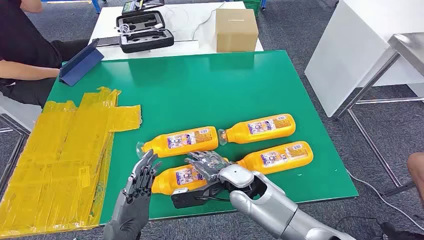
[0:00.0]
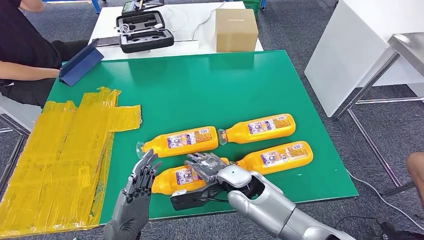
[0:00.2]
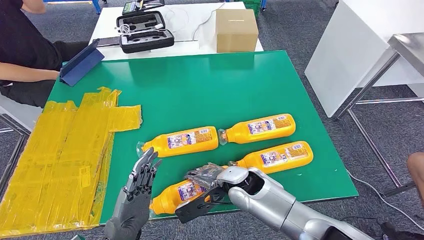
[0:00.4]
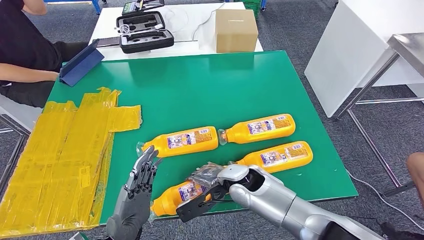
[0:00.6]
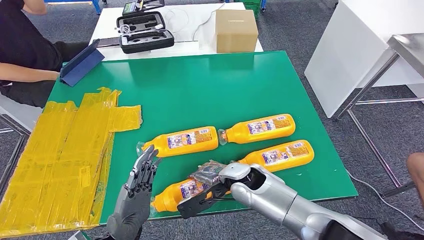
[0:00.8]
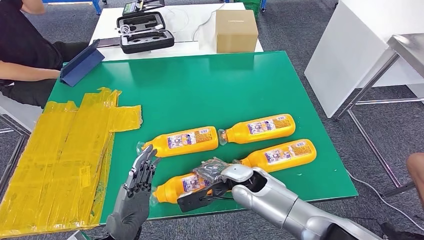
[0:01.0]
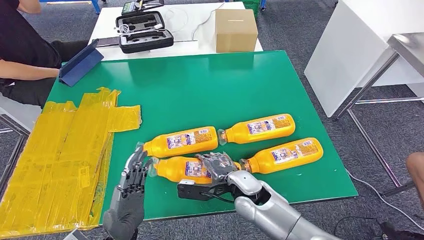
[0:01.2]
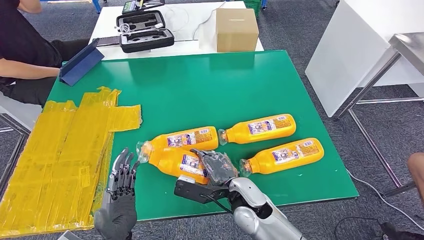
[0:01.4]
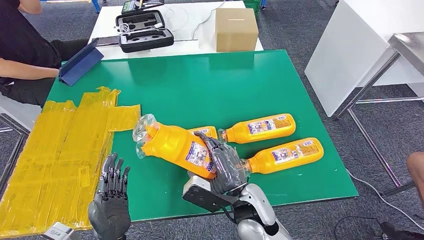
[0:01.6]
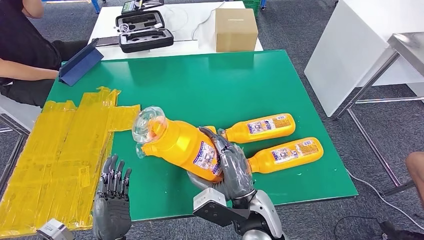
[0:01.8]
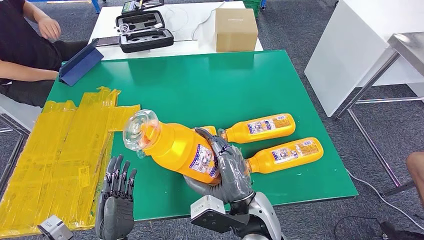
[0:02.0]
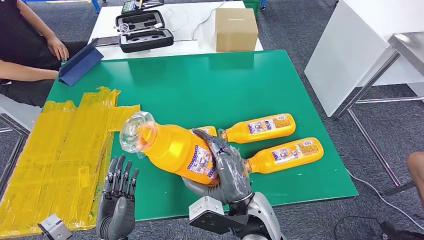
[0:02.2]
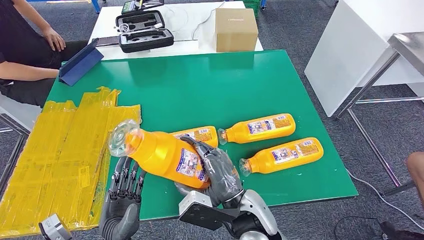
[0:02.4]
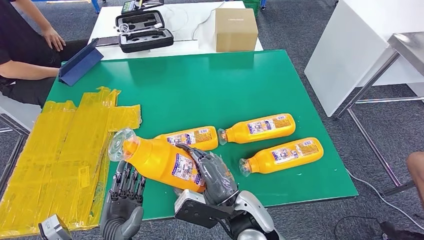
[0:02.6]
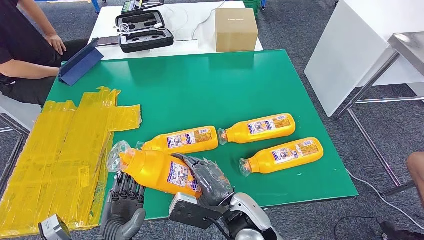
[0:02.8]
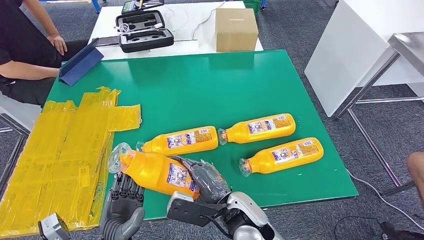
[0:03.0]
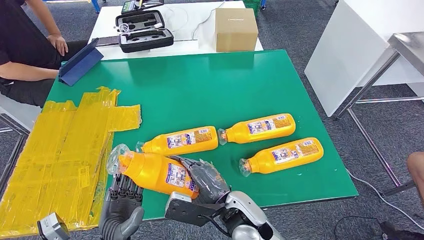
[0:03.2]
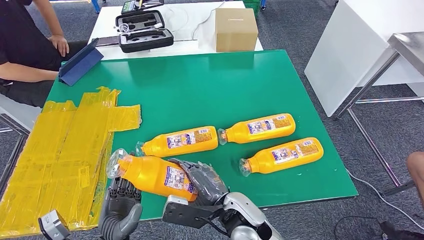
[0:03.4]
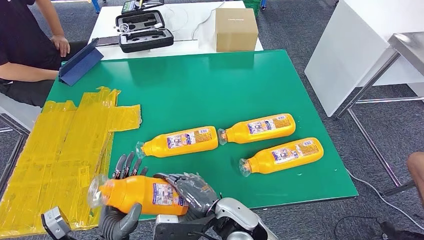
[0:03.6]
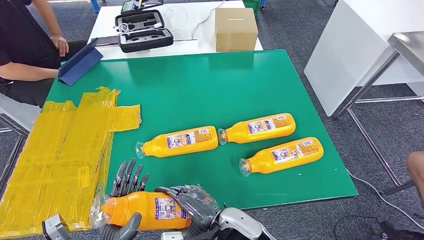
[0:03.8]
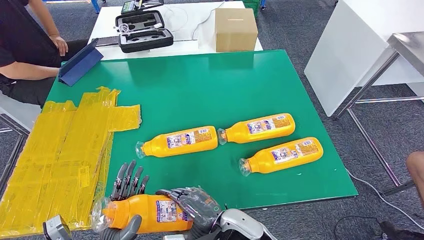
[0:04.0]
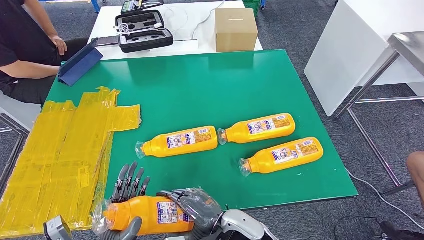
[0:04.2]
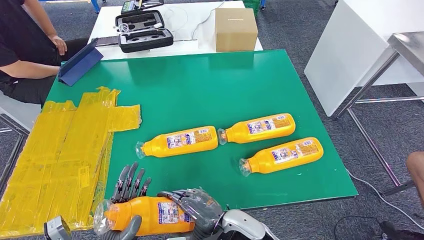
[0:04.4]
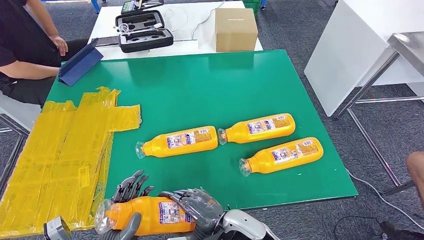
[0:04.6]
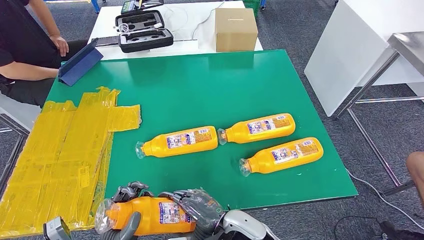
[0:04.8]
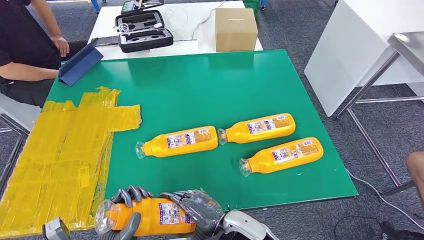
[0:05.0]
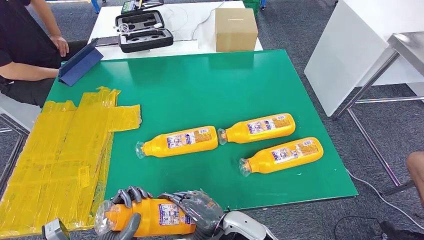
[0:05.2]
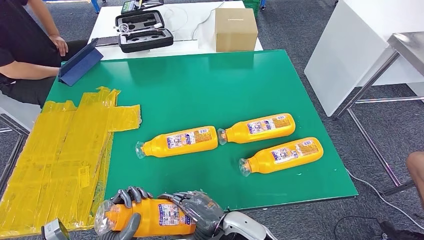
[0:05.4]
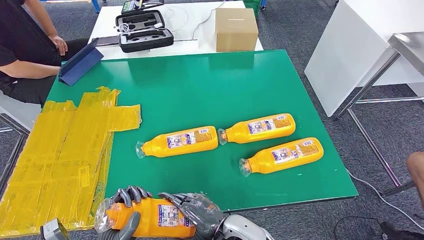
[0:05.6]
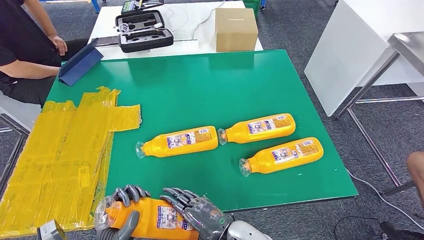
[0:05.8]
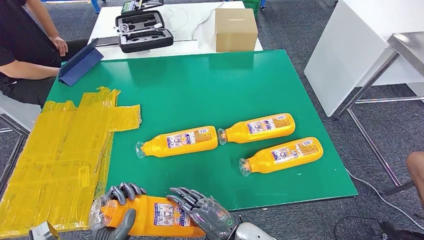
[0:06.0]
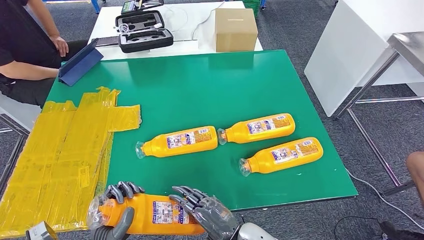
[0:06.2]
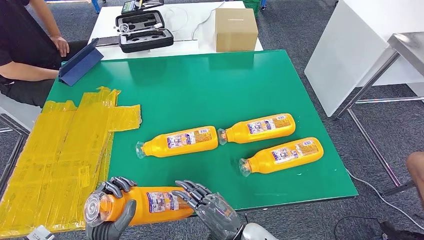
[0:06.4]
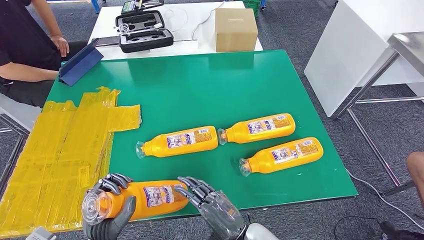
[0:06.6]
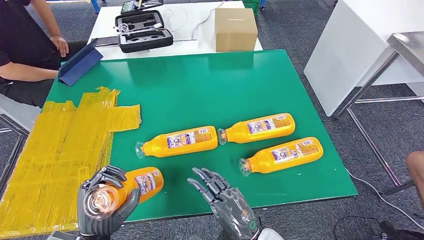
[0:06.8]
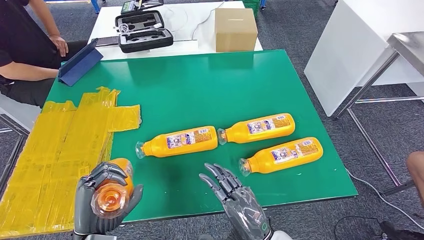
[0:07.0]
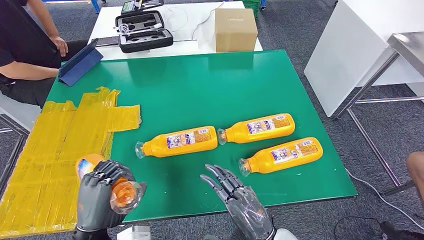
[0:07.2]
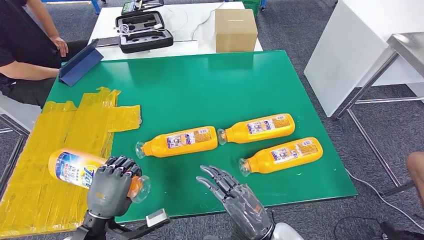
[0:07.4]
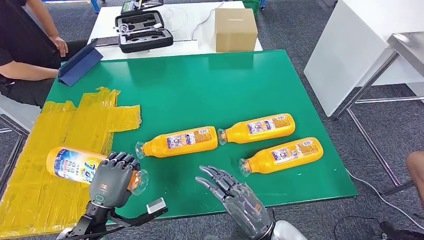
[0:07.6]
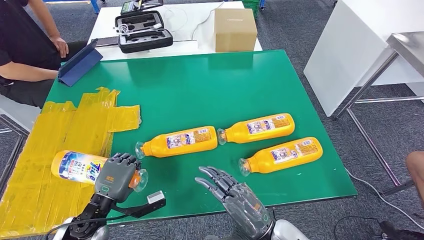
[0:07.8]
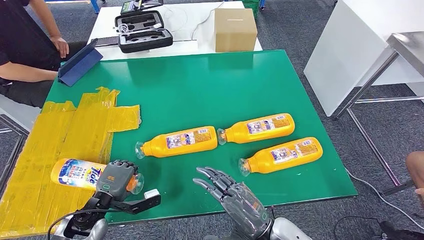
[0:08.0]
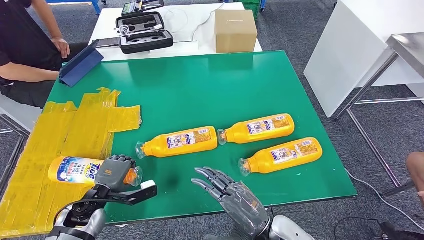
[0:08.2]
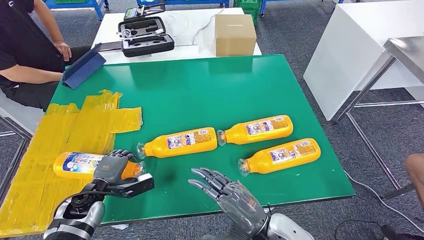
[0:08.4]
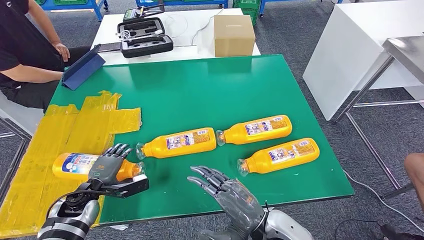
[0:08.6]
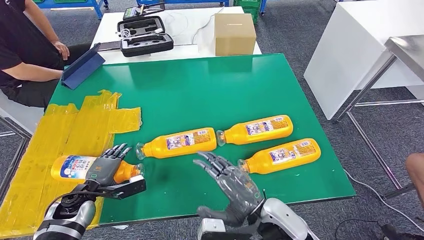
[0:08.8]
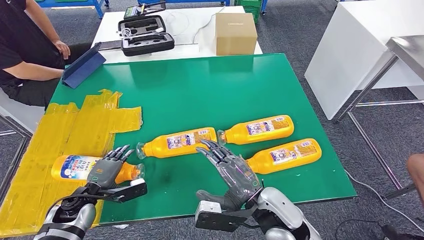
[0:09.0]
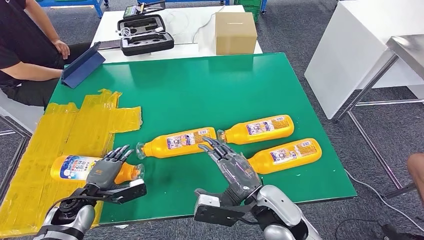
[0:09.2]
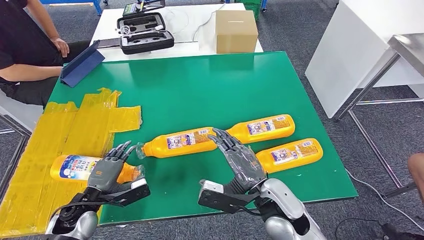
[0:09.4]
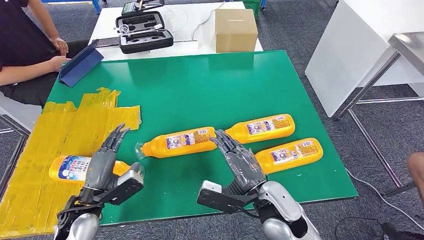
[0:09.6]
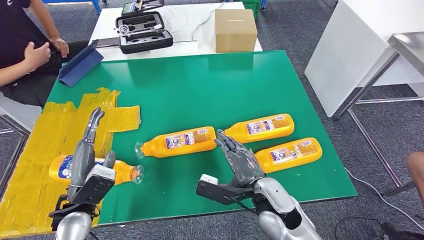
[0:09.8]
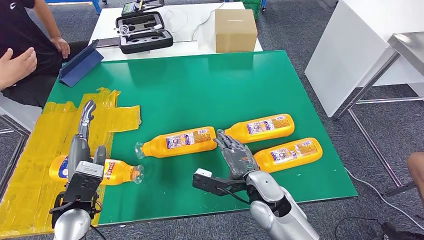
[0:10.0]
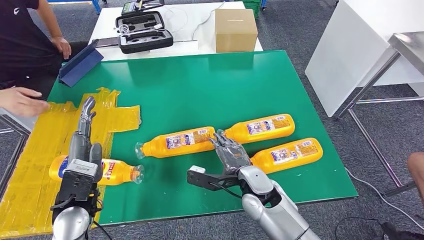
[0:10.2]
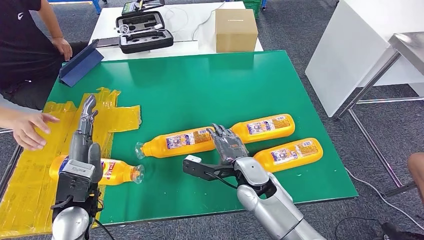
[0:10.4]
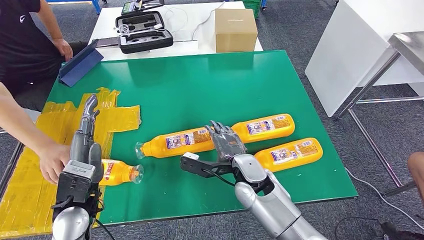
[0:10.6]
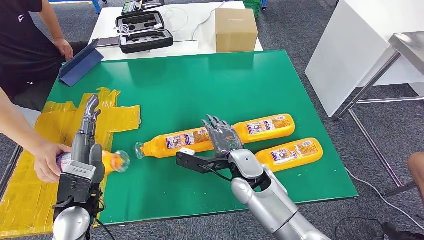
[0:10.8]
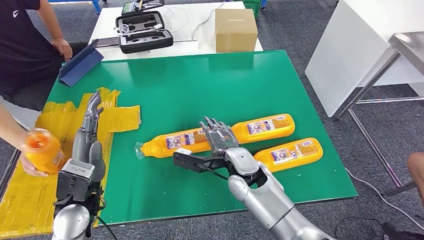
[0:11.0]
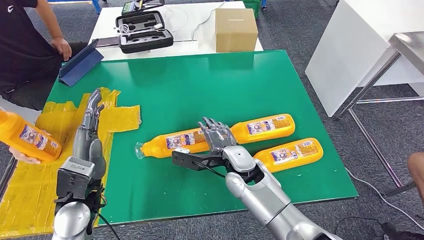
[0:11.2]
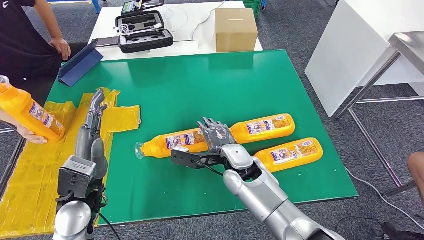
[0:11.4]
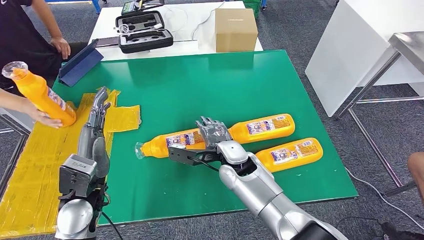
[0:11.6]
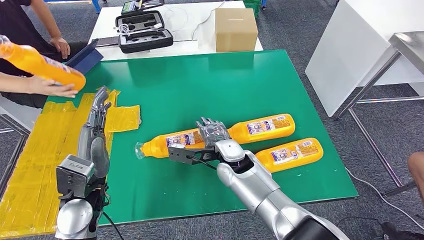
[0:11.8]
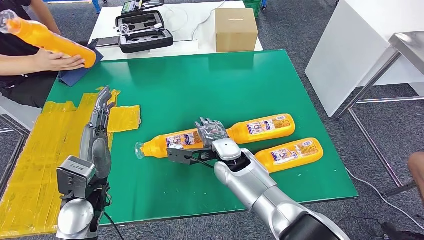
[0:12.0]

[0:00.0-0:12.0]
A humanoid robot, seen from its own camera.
Step, 0:00.0 to 0:03.8: Take the fast-moving consumer goods bottle from the table.
Step, 0:04.0 to 0:09.0: Flip the fast-moving consumer goods bottle to the front side.
0:04.4 to 0:06.0: The hands make only small movements.
0:06.0 to 0:07.6: The left hand is displaced forward by roughly 10 cm; the right hand travels to the right by some 5 cm.
0:10.4 to 0:12.0: The right hand heads forward and to the left, covering approximately 10 cm.

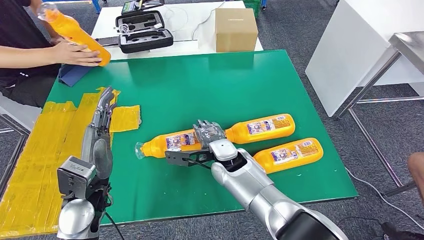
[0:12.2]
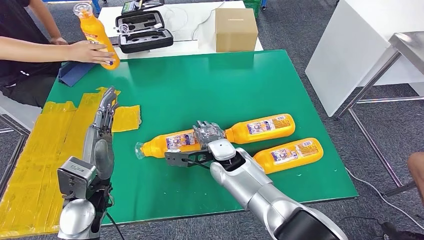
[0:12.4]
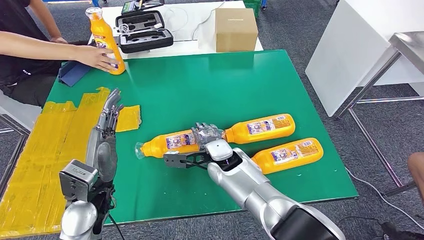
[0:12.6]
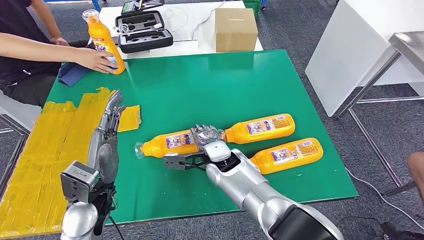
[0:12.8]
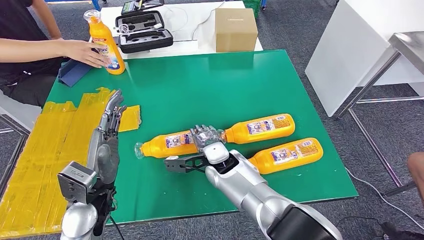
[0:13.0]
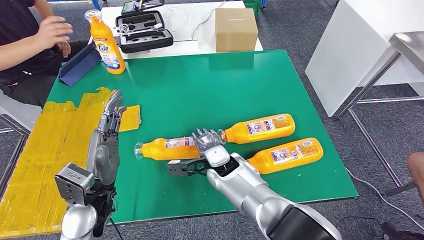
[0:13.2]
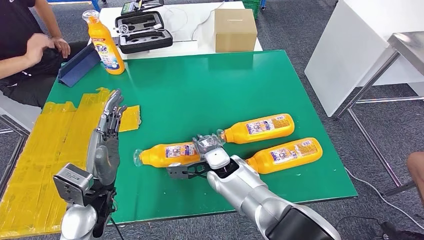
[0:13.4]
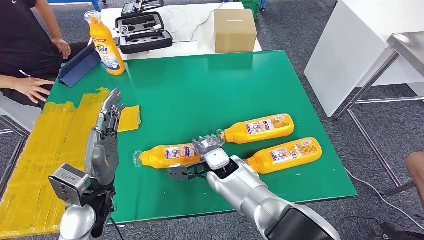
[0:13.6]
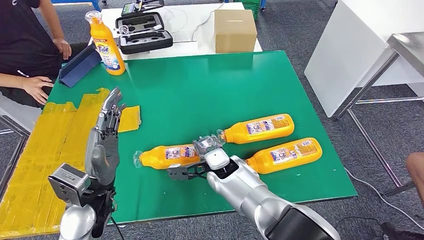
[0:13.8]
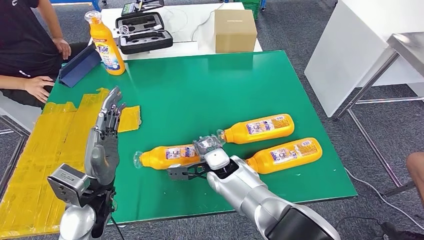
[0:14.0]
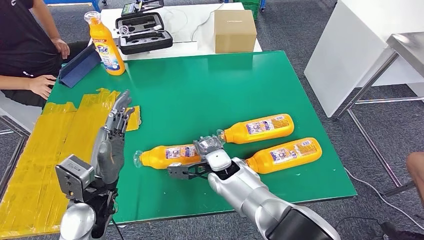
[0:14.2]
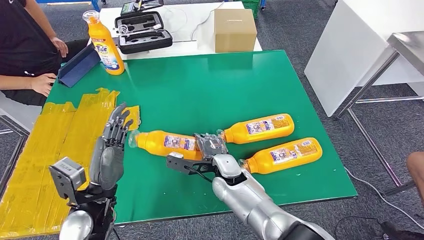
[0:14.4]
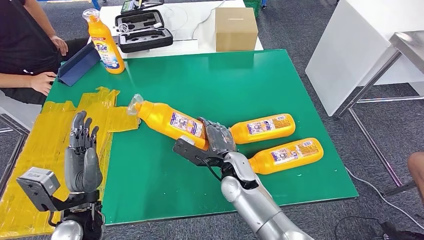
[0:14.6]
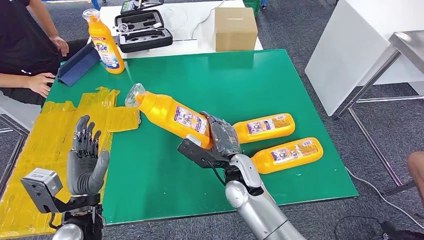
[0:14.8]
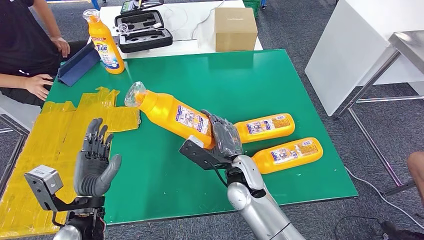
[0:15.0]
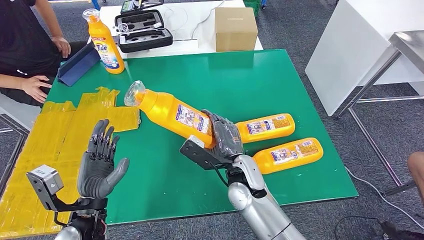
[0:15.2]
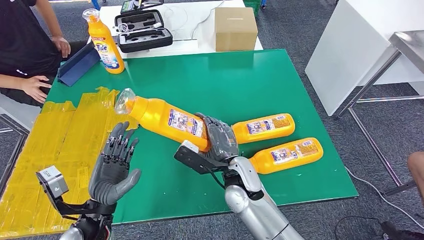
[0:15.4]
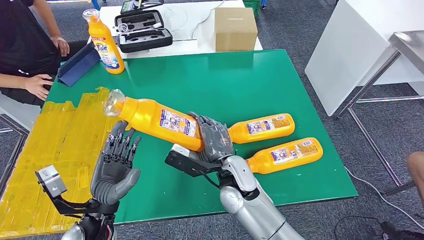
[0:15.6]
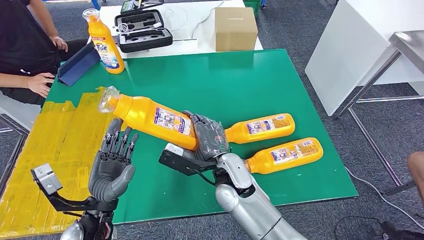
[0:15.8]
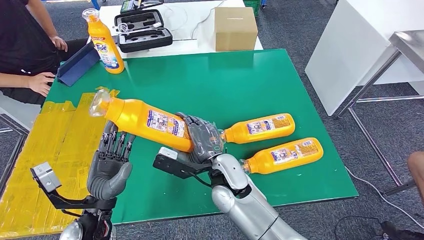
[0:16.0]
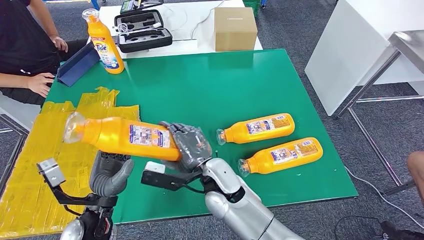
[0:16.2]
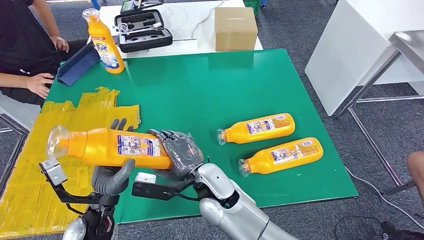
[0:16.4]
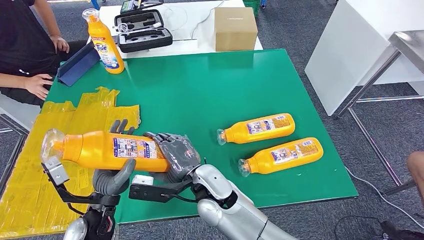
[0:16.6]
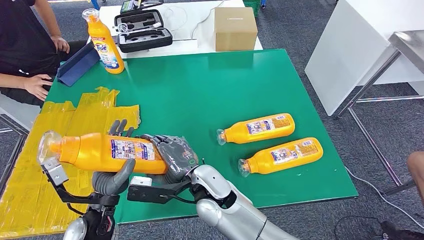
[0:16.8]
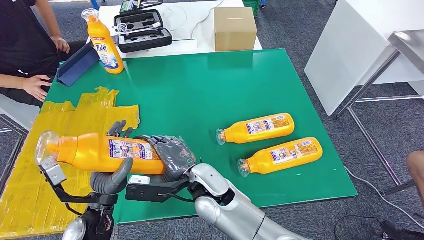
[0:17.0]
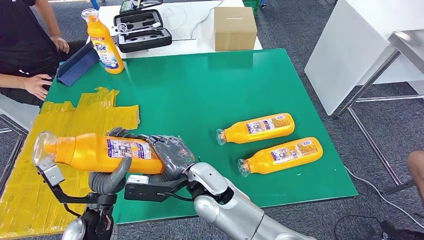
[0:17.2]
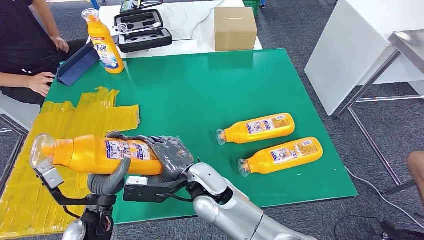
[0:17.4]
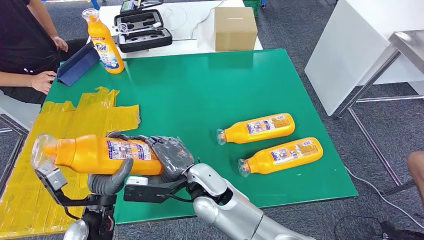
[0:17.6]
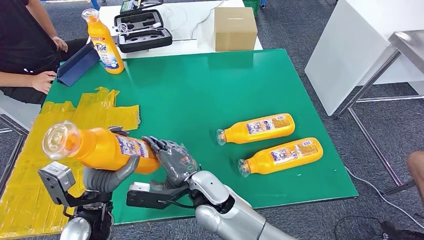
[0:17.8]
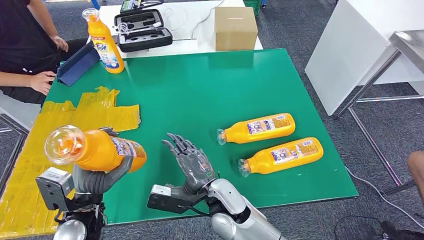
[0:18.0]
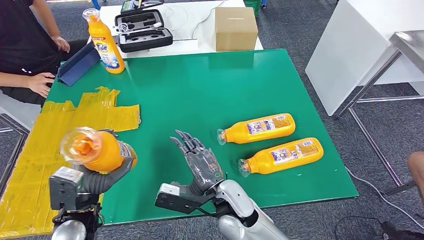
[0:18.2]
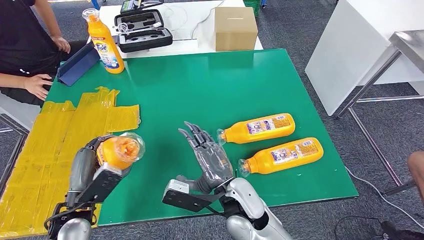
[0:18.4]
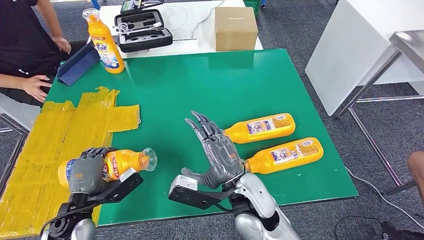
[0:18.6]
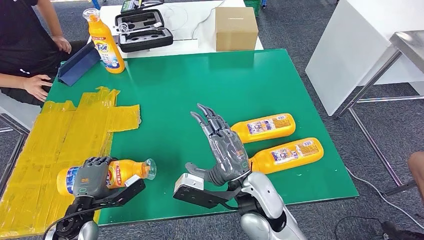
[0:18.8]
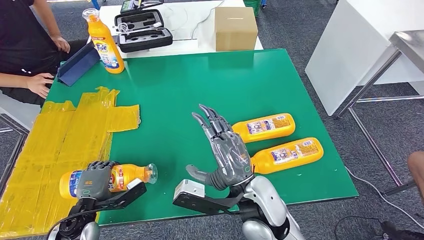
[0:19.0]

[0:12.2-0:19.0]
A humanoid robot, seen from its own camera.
Step, 0:13.0 to 0:17.0: Pick up the fast-moving consumer goods bottle from the table.
0:15.0 to 0:16.2: The right hand travels to the left by about 5 cm.
0:16.2 to 0:17.6: There are only small adjustments of the hands.
0:17.6 to 0:19.0: The right hand is displaced to the right, upward and backward by about 15 cm; the left hand travels to the left and downward by about 10 cm.
